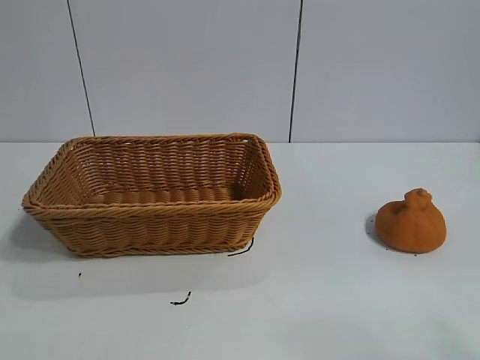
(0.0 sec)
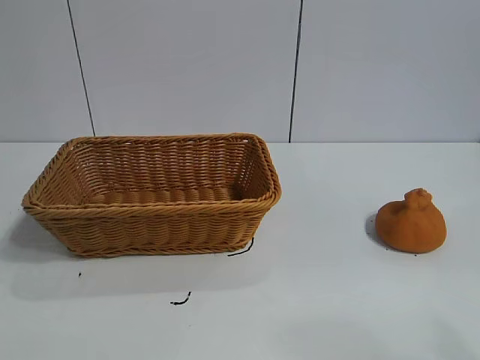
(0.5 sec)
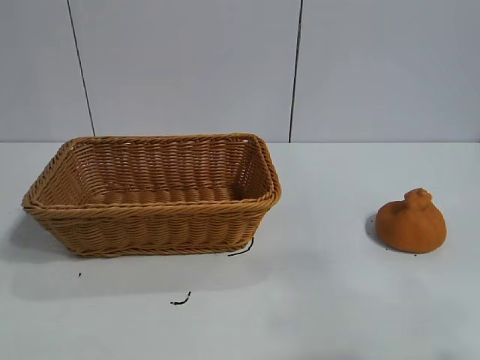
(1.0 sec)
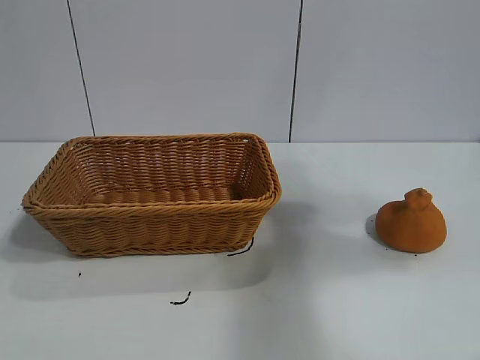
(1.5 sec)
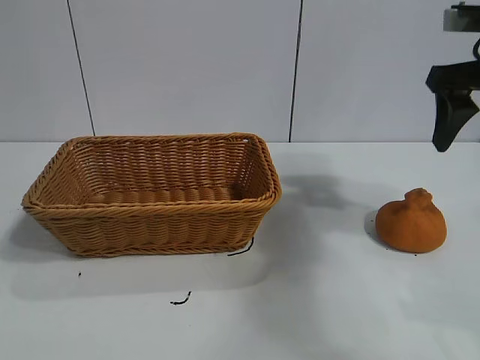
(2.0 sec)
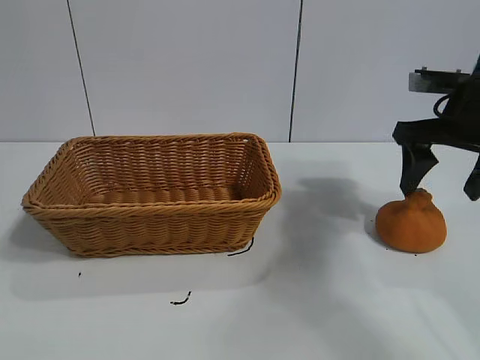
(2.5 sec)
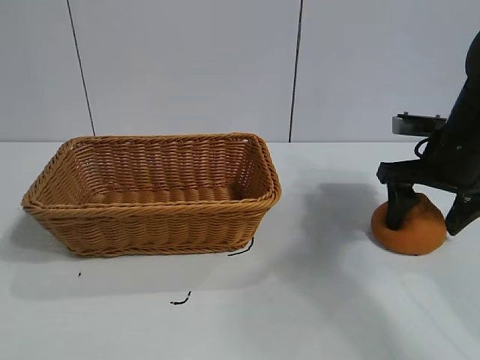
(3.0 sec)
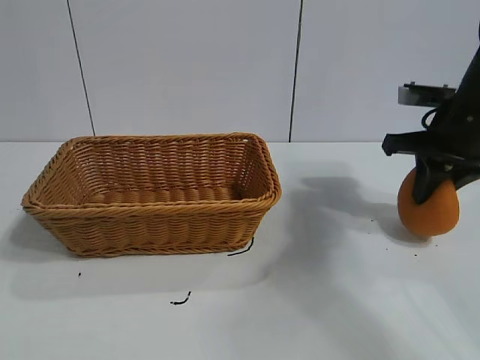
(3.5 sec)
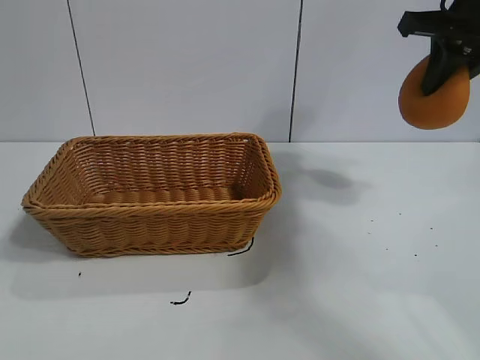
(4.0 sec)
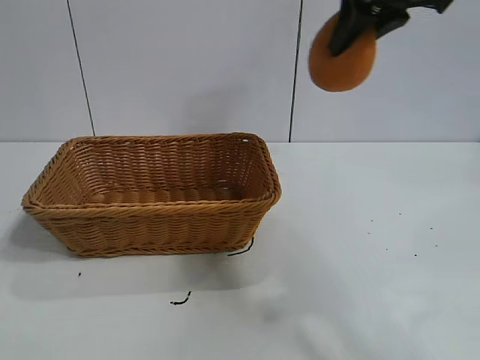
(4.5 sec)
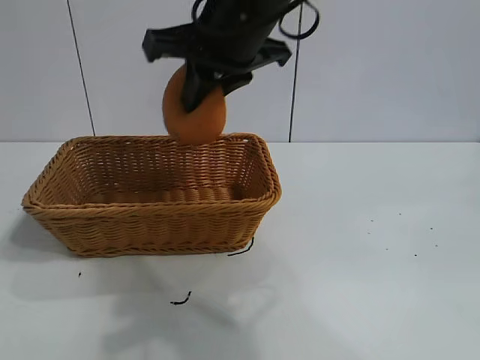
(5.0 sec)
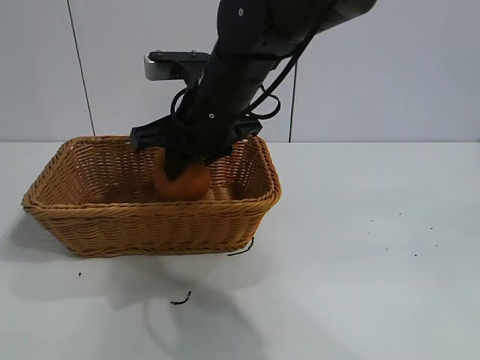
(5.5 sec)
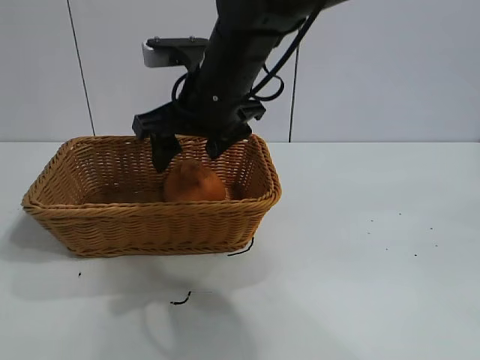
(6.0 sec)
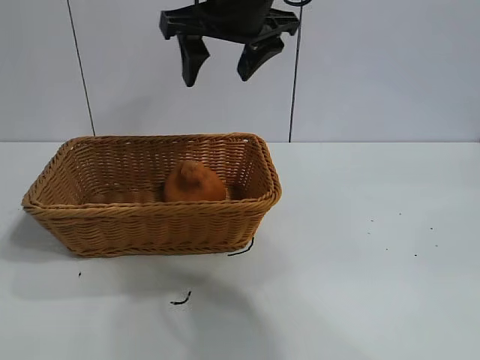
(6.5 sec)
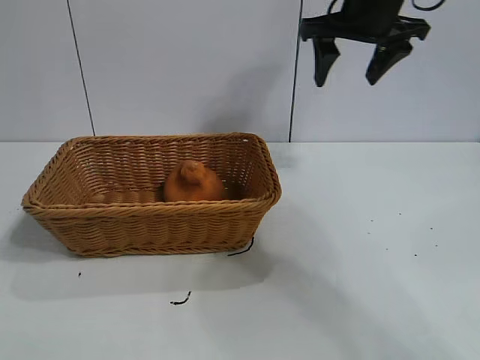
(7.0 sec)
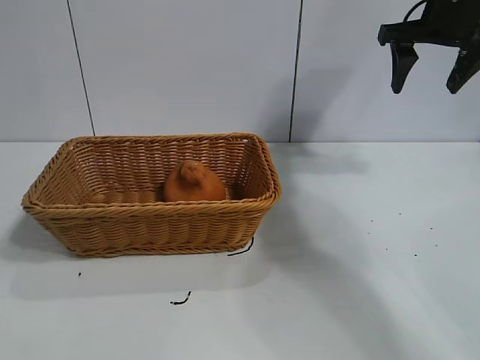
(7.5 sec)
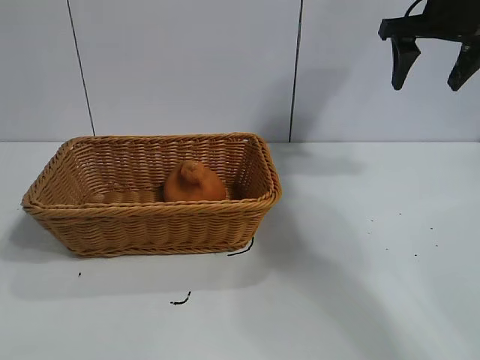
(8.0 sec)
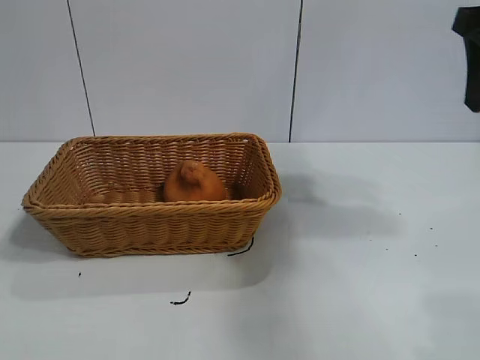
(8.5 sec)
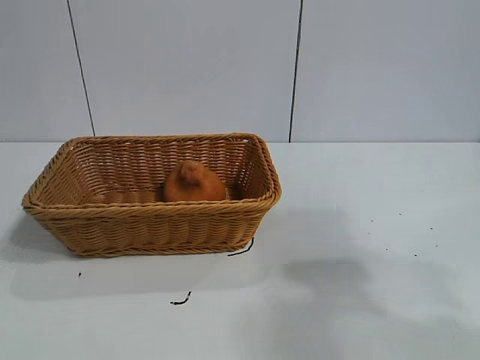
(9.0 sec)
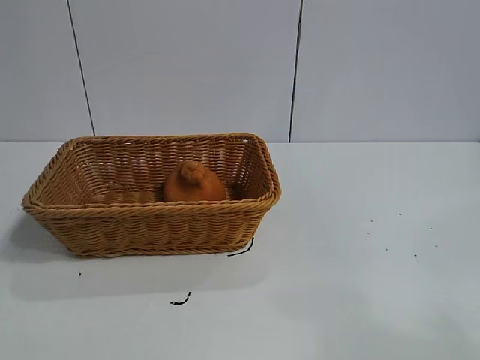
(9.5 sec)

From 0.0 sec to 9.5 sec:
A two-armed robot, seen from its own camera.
Task of the whole recording: pick up the orange and put it into the basket.
Step, from 1.0 sec to 3.5 sec: Grasp the orange with right gripper.
Step, from 4.0 sec to 6.0 sec: Place the orange in the basket with right gripper.

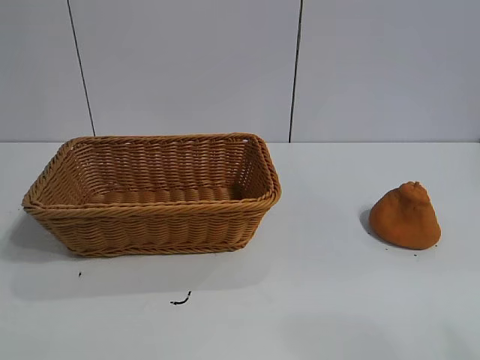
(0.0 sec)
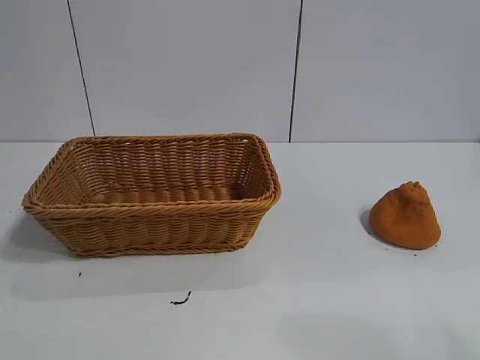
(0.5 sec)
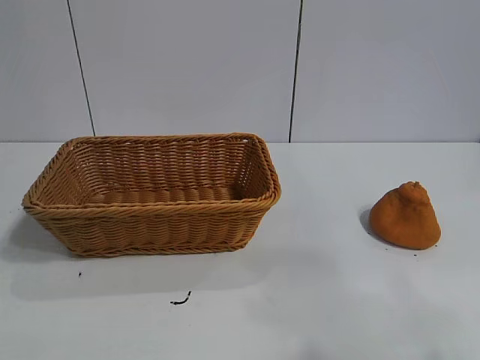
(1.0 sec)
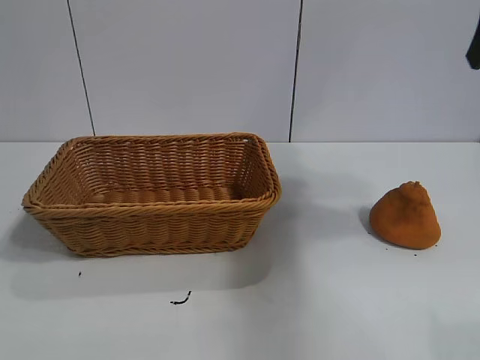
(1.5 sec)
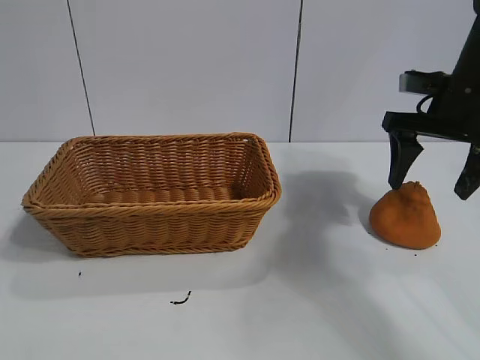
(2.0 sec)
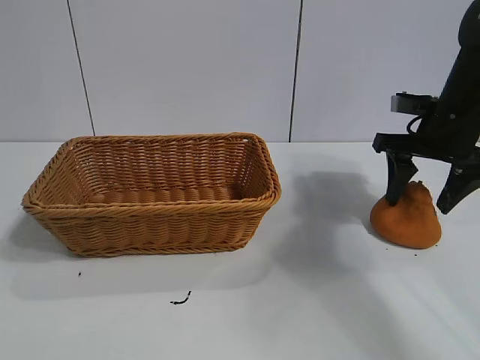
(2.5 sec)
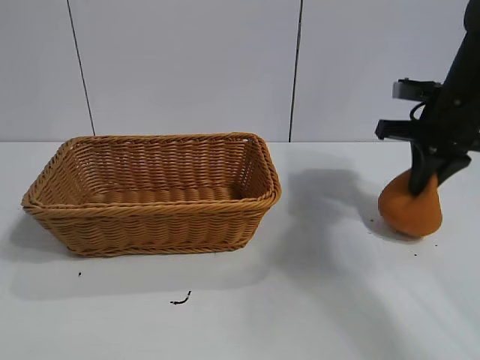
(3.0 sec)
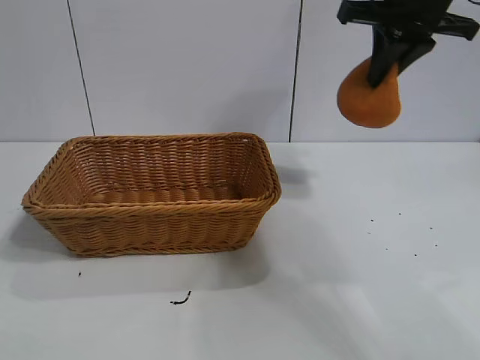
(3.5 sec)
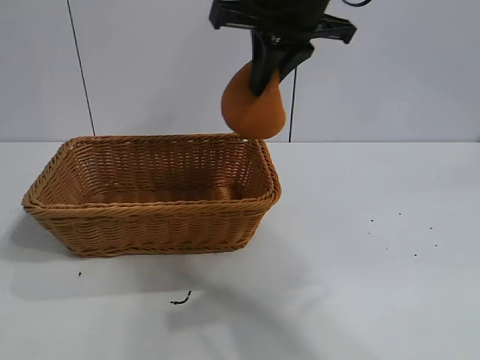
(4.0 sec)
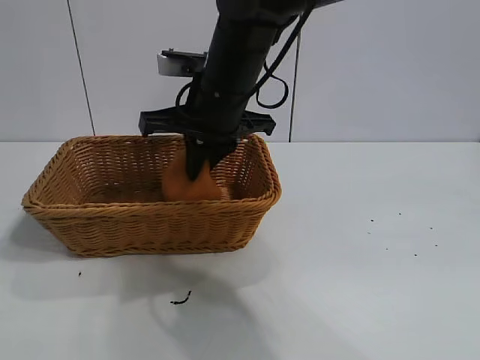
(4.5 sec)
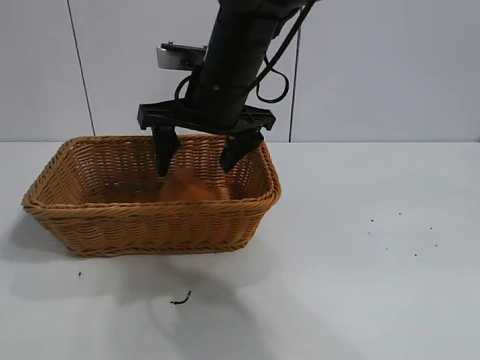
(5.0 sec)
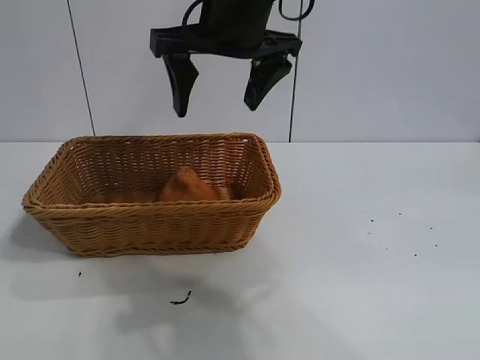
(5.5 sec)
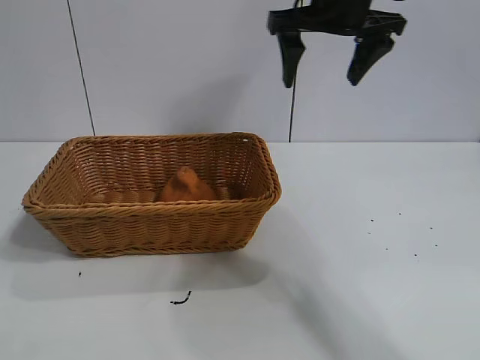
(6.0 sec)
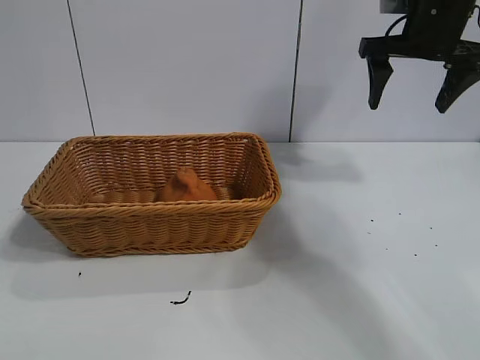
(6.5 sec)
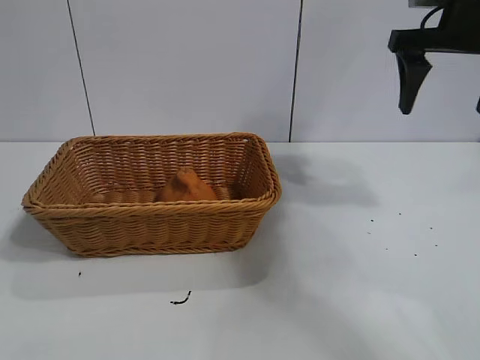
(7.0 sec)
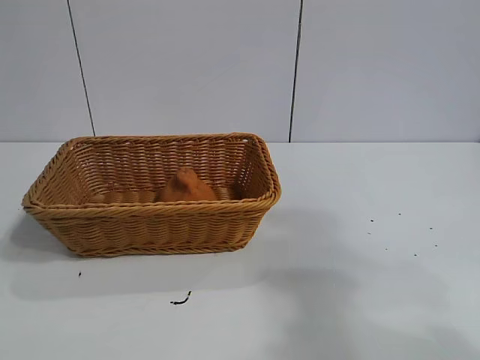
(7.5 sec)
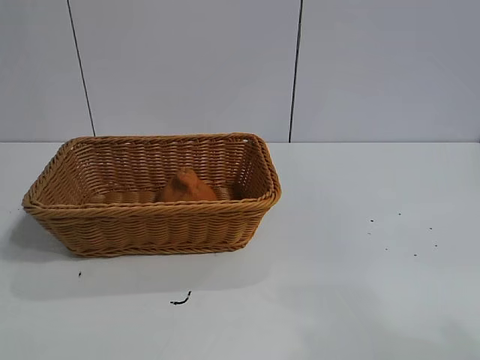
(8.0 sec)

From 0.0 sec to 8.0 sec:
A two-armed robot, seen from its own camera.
Task of the whole recording: pick up the orange and put it into the basket.
Step, from 1.0 sec to 2.5 sec: Grasp the orange with right gripper.
Step, from 3.0 sec to 5.0 sec: Place the orange in the basket with right gripper.

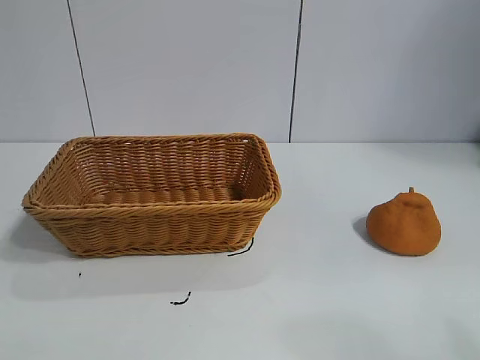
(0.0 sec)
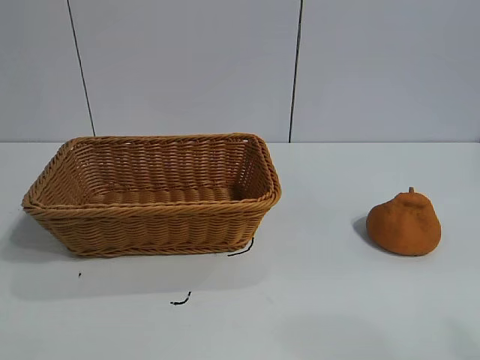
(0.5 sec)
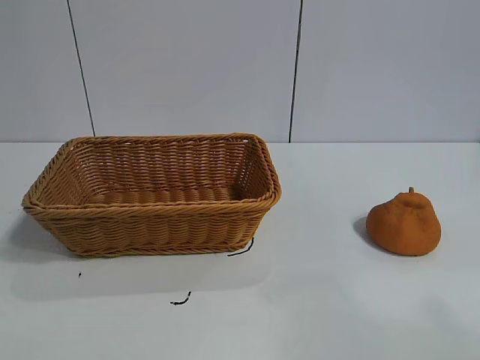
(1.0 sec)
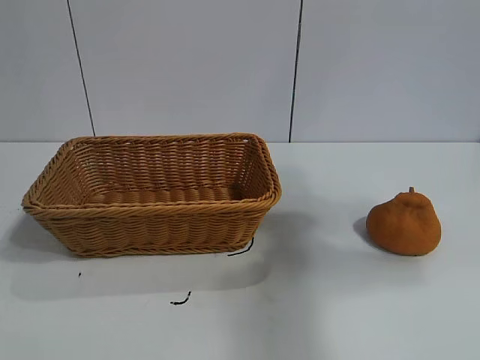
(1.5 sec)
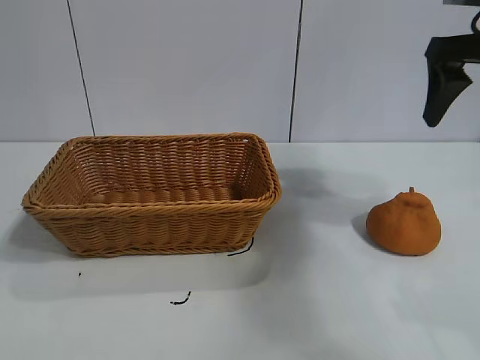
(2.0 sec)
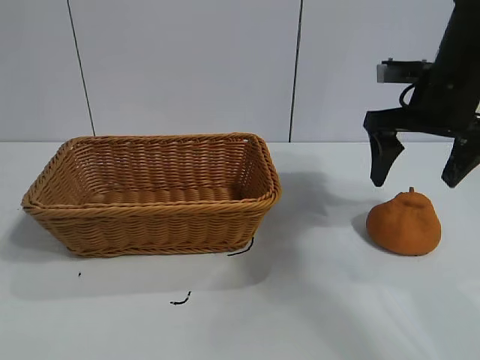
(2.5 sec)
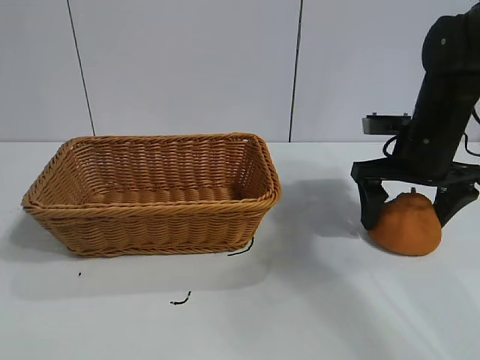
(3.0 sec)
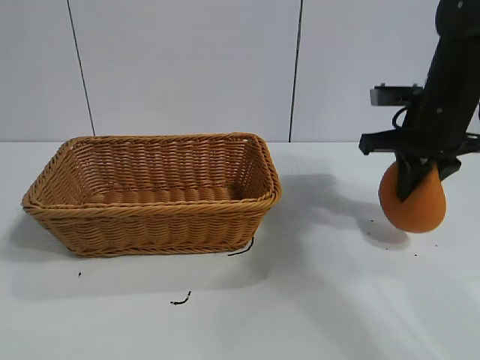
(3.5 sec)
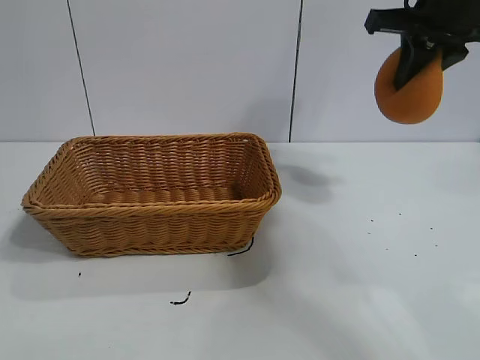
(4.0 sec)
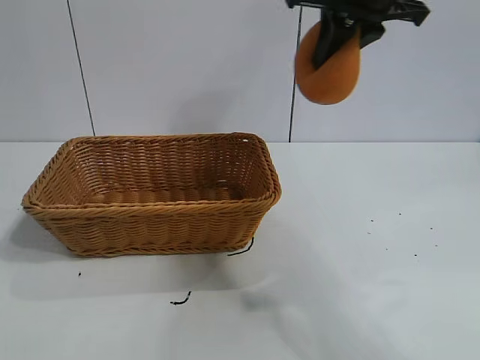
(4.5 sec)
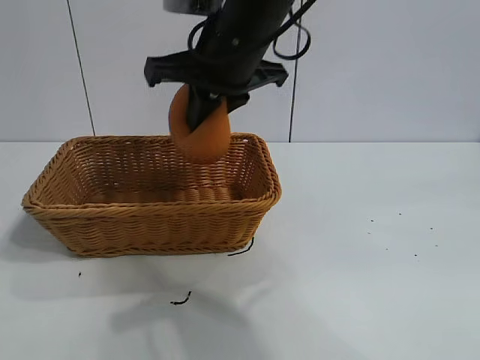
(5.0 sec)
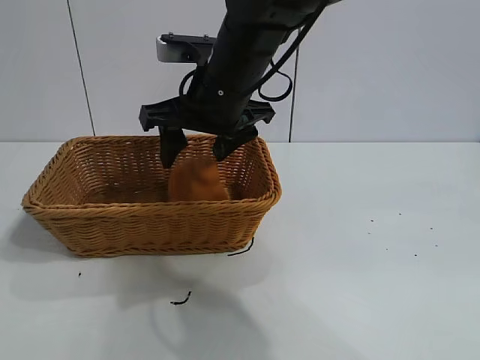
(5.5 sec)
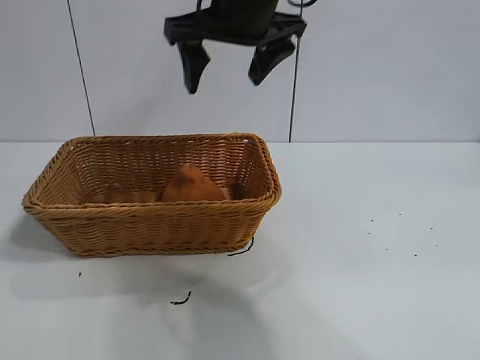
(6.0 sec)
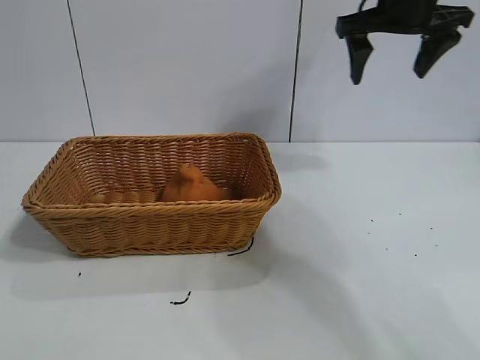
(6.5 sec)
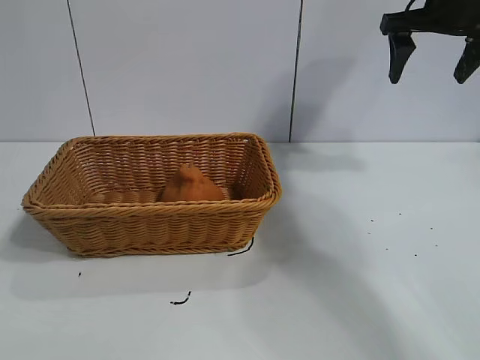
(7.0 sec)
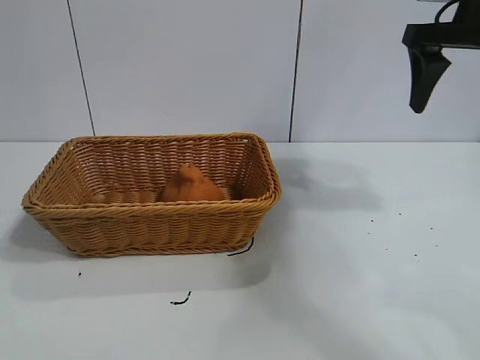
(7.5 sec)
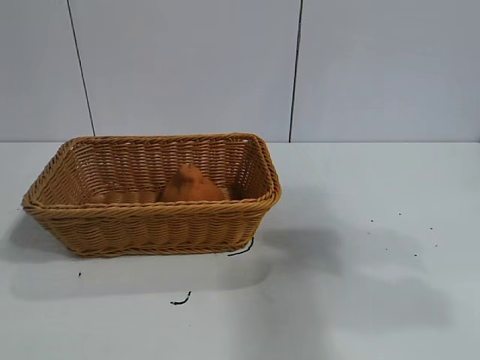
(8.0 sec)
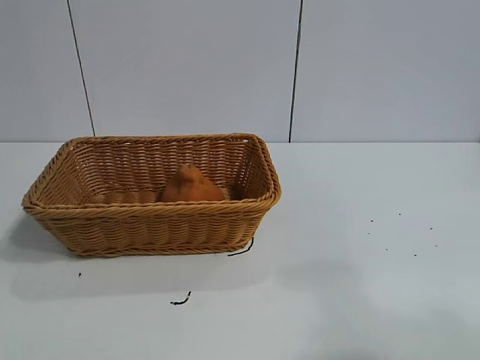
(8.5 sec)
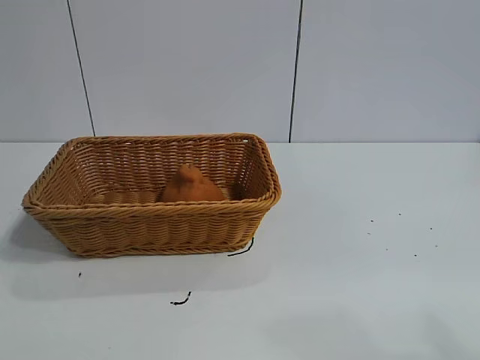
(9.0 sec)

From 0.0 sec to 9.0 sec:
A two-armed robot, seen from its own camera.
Task of the whole recording: pick up the orange and put it into the basket.
Step, from 1.0 sec to 3.0 sec: Grasp the orange with right gripper.
Step, from 3.5 sec to 5.5 sec: Place the orange in the basket with right gripper.
